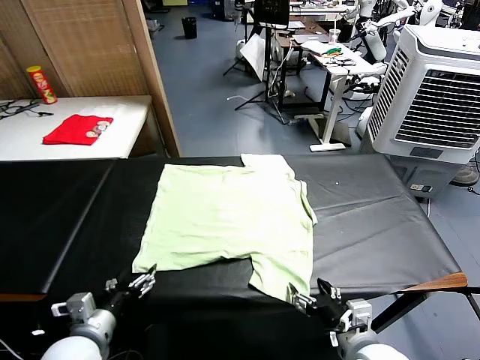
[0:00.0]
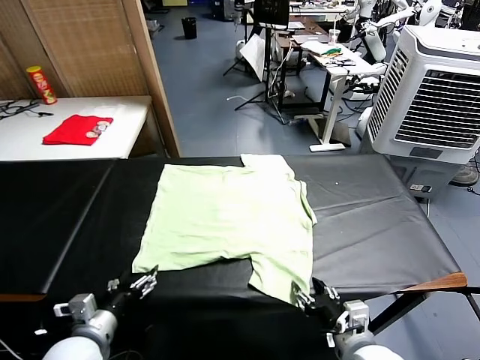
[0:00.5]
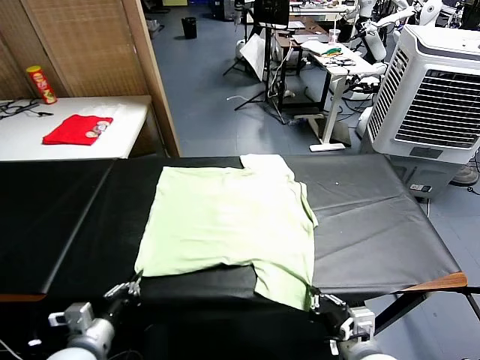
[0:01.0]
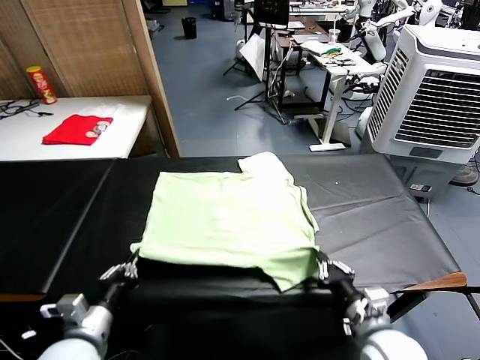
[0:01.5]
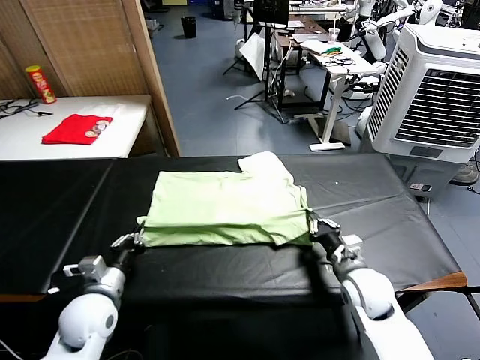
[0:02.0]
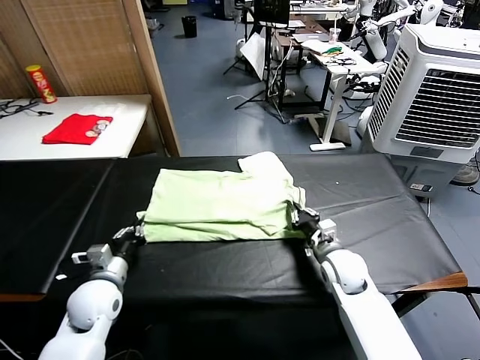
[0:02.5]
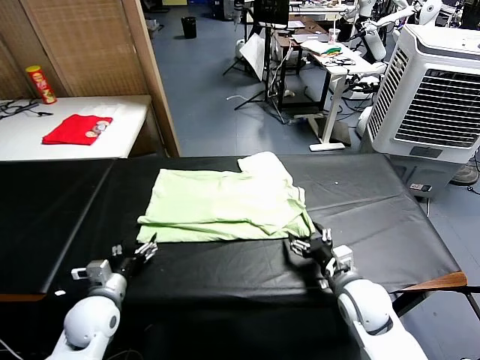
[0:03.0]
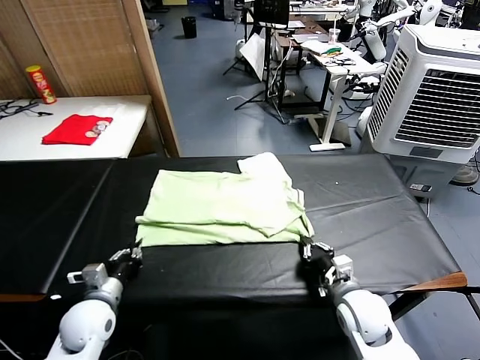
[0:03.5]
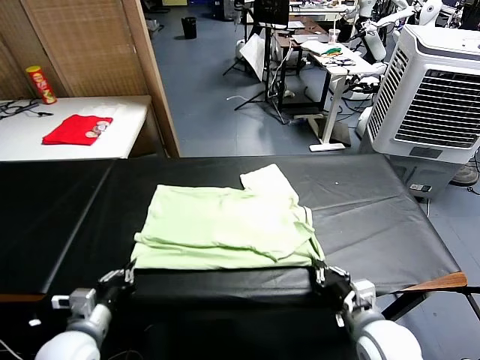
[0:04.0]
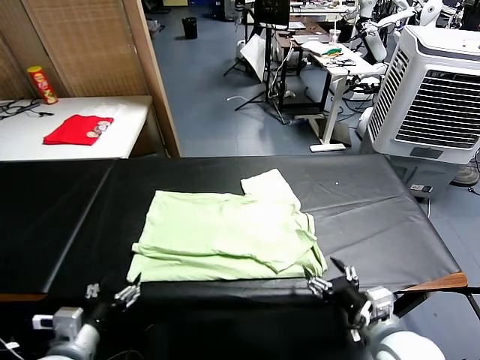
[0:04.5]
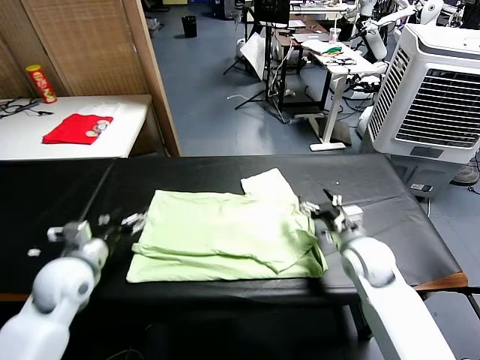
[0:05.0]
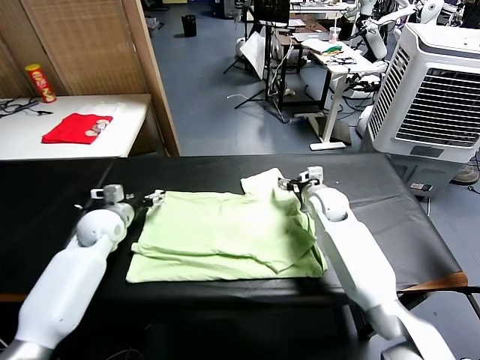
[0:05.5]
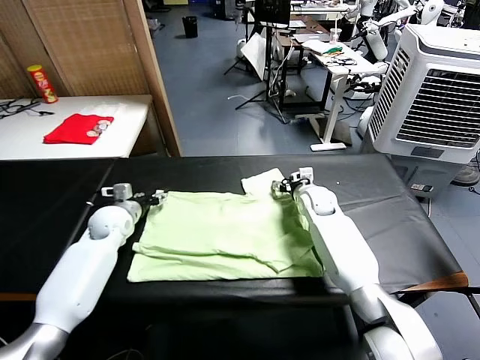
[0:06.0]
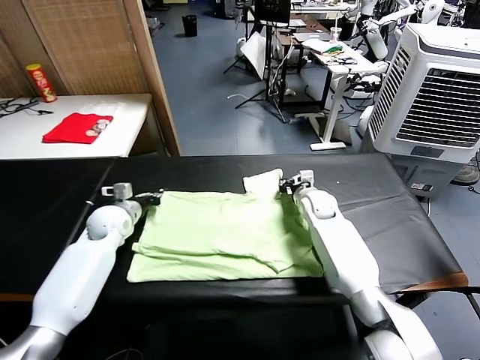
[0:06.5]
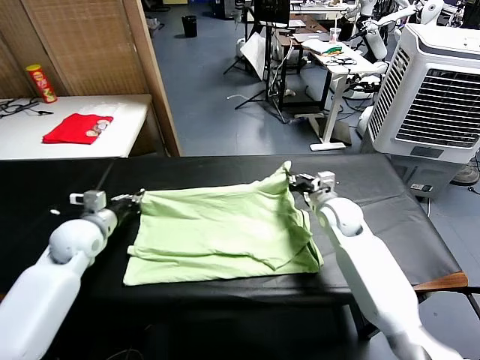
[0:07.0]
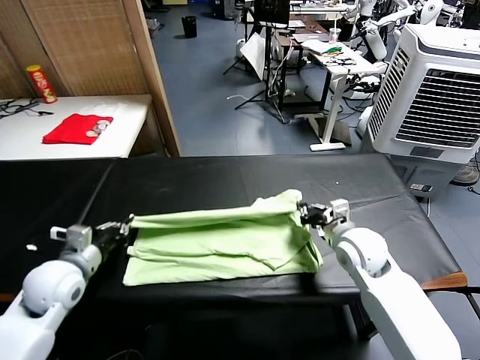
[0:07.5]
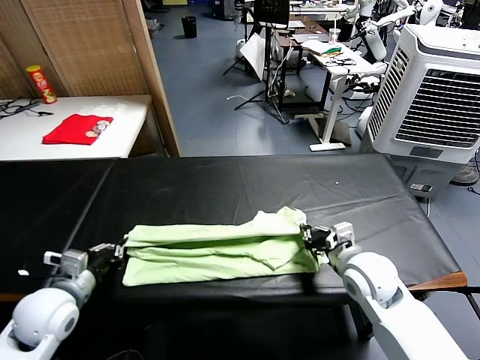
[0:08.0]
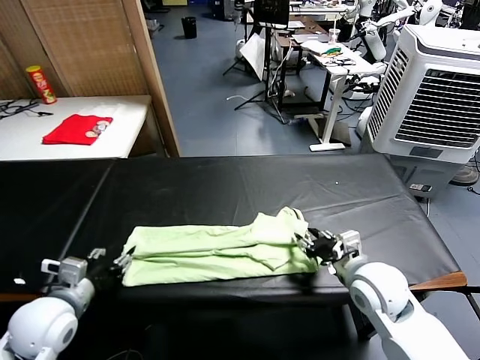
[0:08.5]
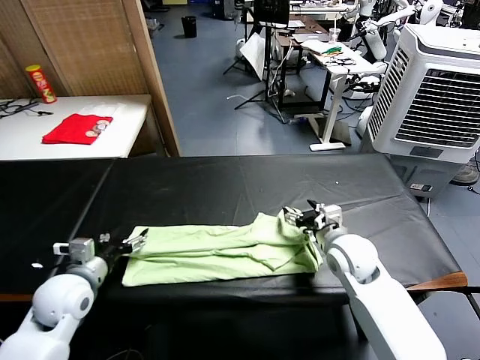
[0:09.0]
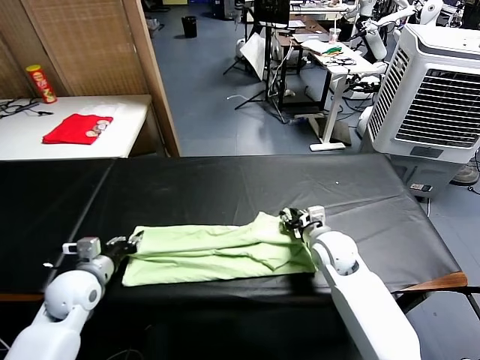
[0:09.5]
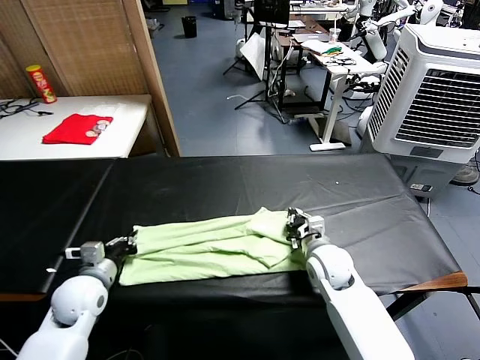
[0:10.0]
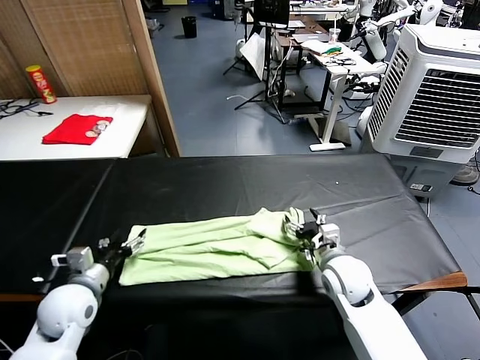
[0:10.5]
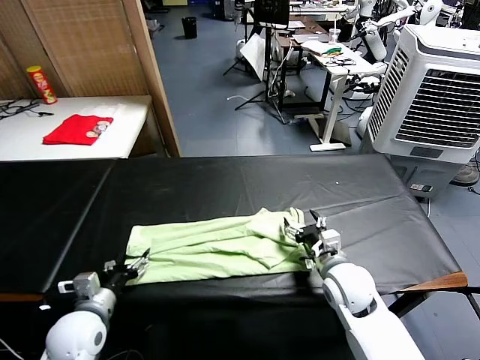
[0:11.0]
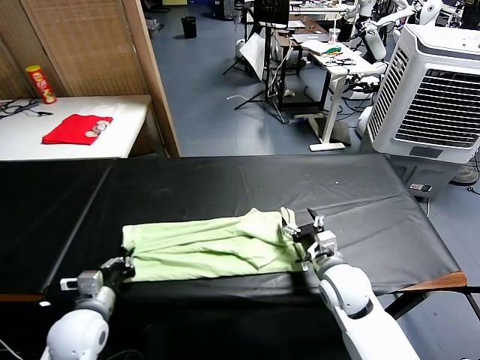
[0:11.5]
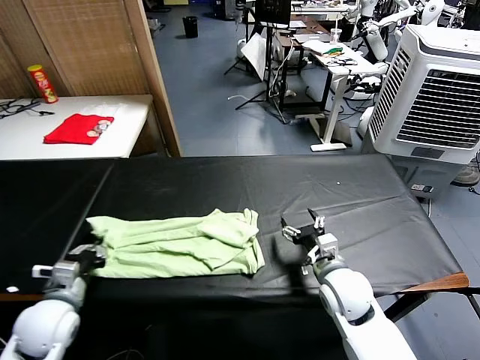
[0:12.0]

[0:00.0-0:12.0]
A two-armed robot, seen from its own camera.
Task of the whole recording: fold and organize the clothes.
Step, 0:00.0 to 0:01.0: use both grippers simultaneously to clamp the lower edge of the clothing fabric.
Step, 0:01.5 to 0:02.5: use both grippers to drag the lower edge of the fabric forward and fold it over the upper edge.
Step, 0:03.0 to 0:04.5: Drag the clothes downward with both gripper.
Step, 0:05.0 to 0:06.0: use both grippers simultaneously to clamp the upper edge of the clothing fabric.
Step, 0:06.5 to 0:08.5: use both grippers to drag the upper edge of the fabric backward and fold it over the lower edge.
Step, 0:09.0 to 0:11.0: use the left gripper to clamp the left edge of the fabric.
0:02.0 to 0:04.0: The left gripper heads backward, covering about 10 cm, and opens and closes again. Meanwhile the right gripper shifts approximately 20 cm backward, and opens up.
0:04.0 to 0:06.0: The grippers both shift forward by some 35 cm. The right gripper opens and closes again. Meanwhile the left gripper opens, then closes again.
0:06.0 to 0:08.0: Both grippers travel together backward, approximately 25 cm. The left gripper closes up.
0:08.0 to 0:10.0: The right gripper moves downward and forward, some 10 cm, and opens, then closes once more; the left gripper moves forward and downward, roughly 5 cm, and opens and closes again.
0:10.0 to 0:12.0: The two grippers go some 5 cm backward. The right gripper opens; the left gripper opens and closes again.

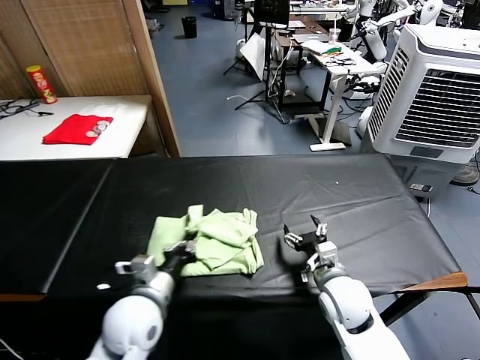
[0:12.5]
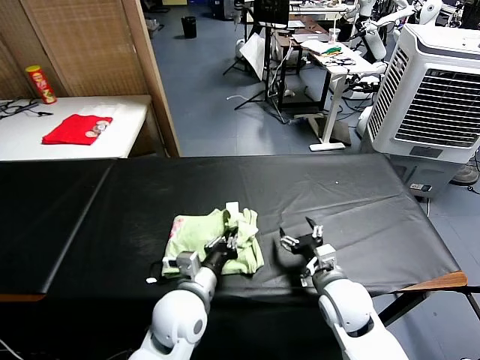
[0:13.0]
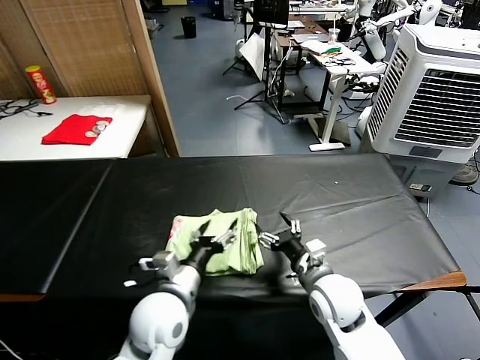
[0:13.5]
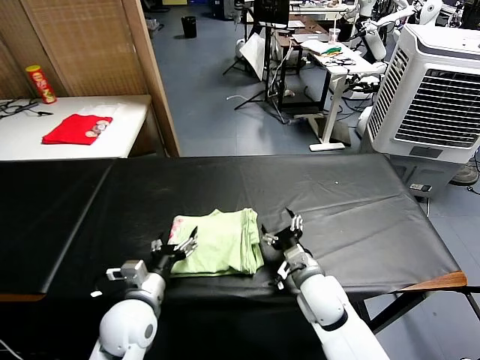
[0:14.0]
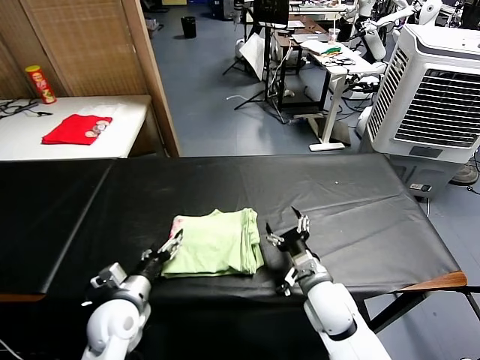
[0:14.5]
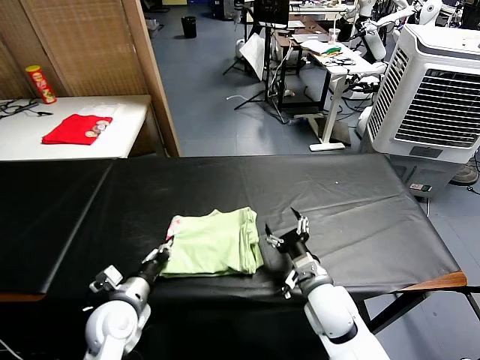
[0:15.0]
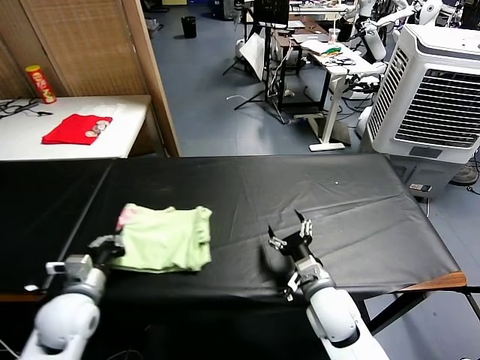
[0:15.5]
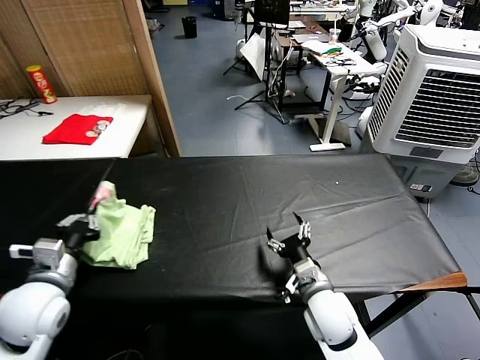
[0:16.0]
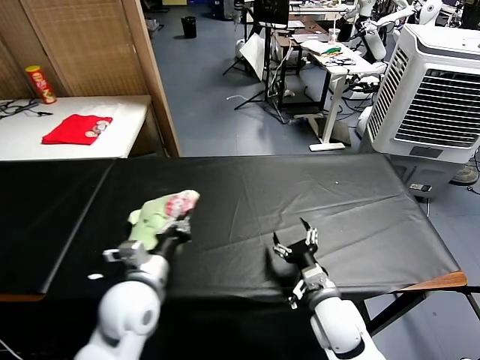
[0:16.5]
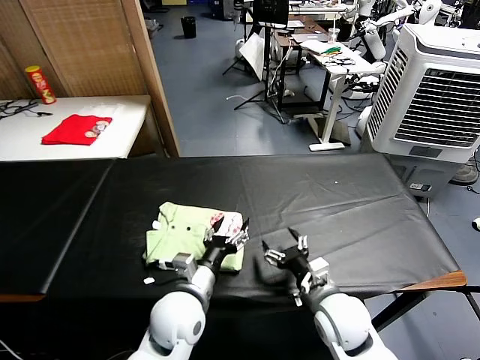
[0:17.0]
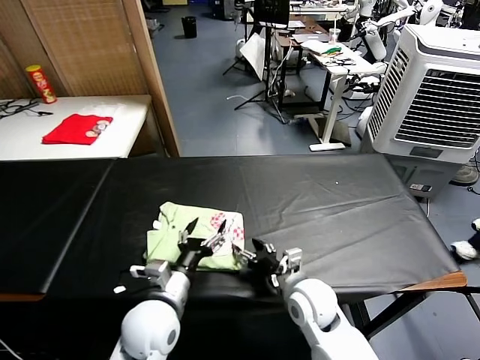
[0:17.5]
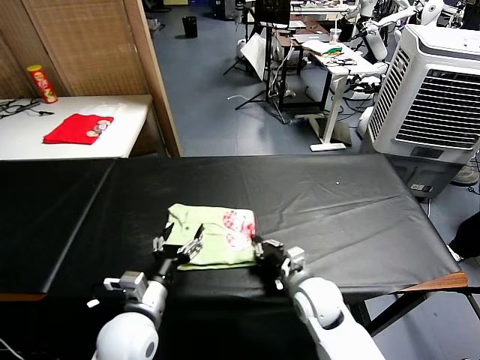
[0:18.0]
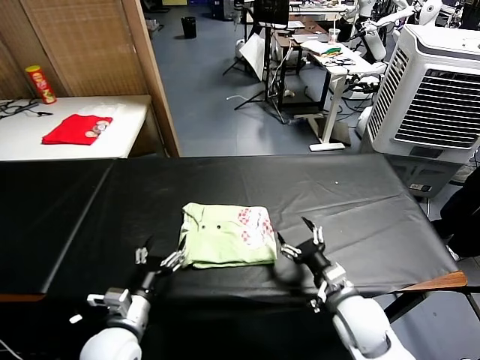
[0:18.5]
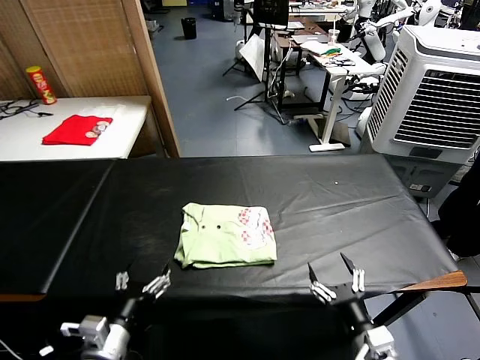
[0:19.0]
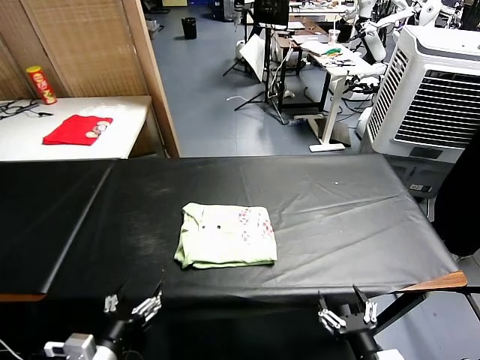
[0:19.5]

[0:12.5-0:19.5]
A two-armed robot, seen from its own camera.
Task of the whole recording: fold and organize the clothes.
Step, 0:13.5 to 0:16.5: Flip the folded clothes over with left gripper.
Step, 0:17.0 to 0:18.0: Drag the clothes to the center of the table.
0:12.5 to 0:14.5: The left gripper travels to the left and downward by about 10 cm, and opens.
0:14.5 to 0:16.0: The left gripper travels upward and to the left by approximately 15 cm, and closes.
0:16.0 to 0:17.5: The left gripper goes roughly 20 cm to the right and downward, and opens.
0:17.5 to 0:19.5: The left gripper heads backward and to the left, covering some 15 cm. The right gripper heads backward and to the right, covering about 25 cm, and closes, then reopens.
